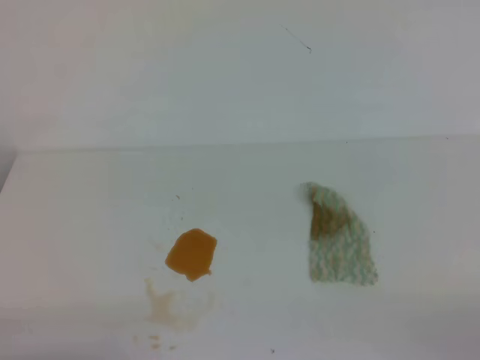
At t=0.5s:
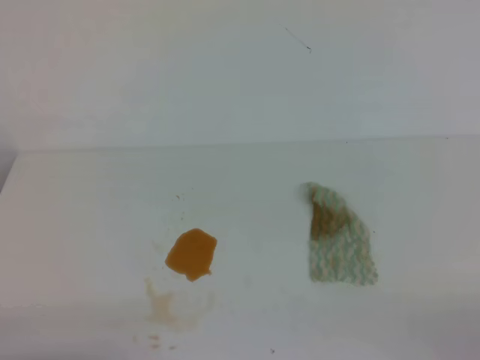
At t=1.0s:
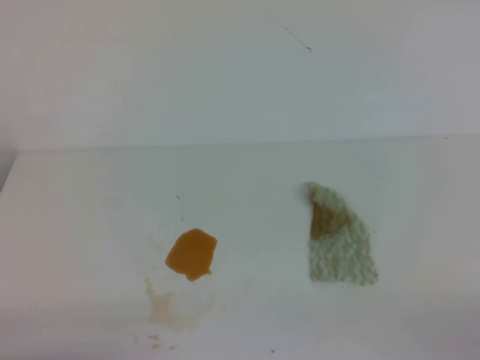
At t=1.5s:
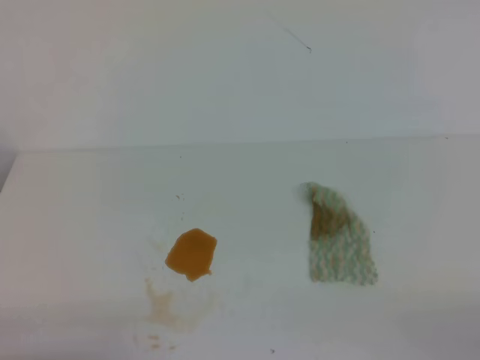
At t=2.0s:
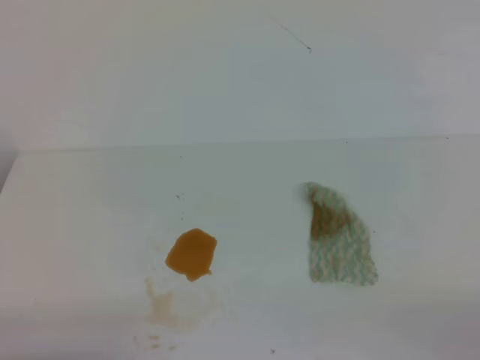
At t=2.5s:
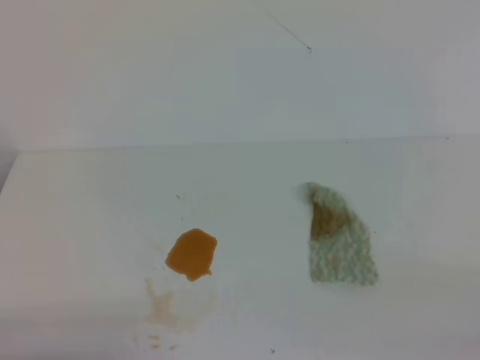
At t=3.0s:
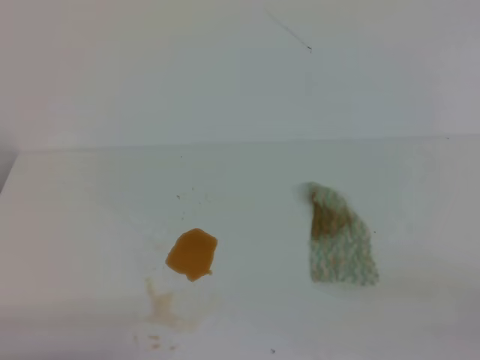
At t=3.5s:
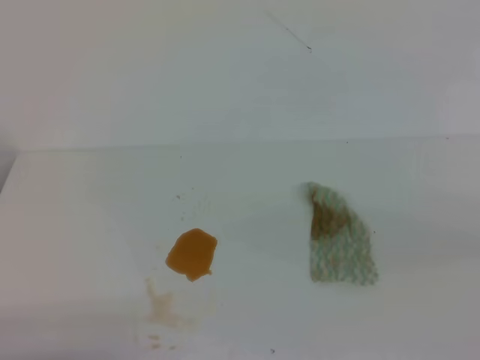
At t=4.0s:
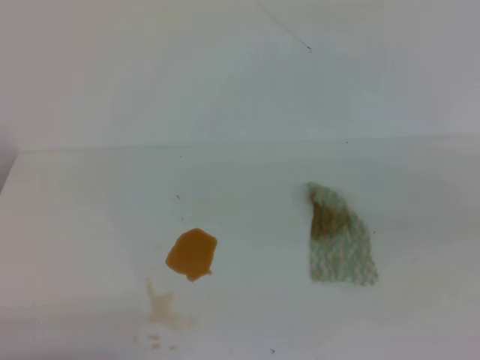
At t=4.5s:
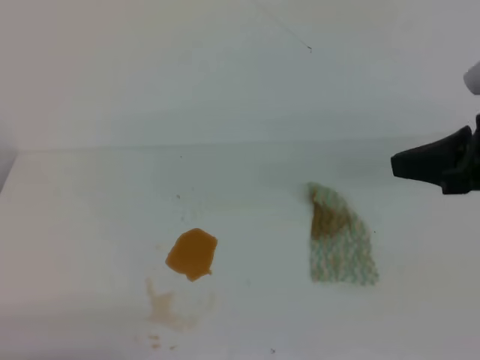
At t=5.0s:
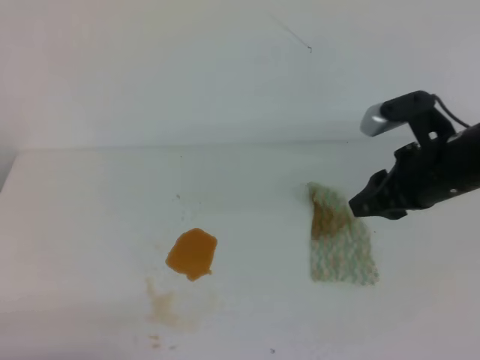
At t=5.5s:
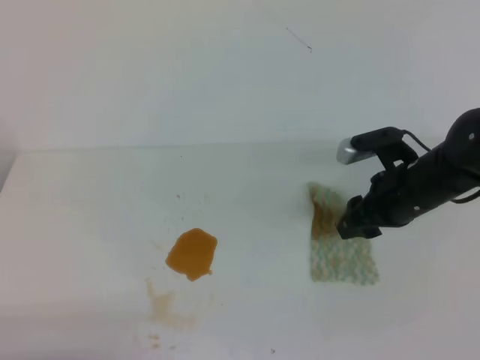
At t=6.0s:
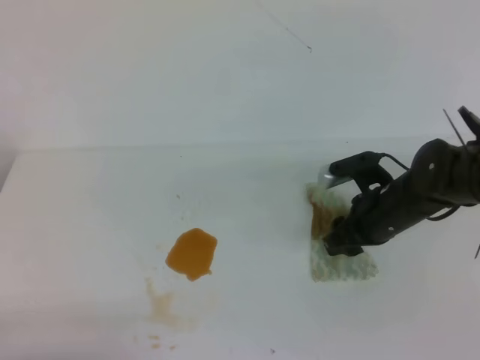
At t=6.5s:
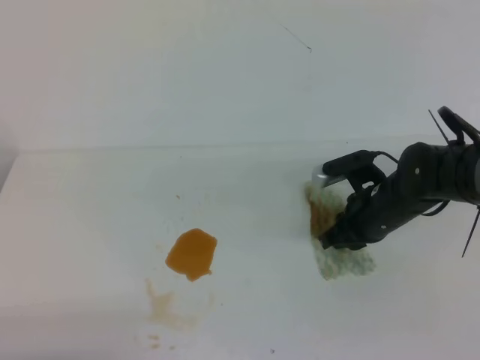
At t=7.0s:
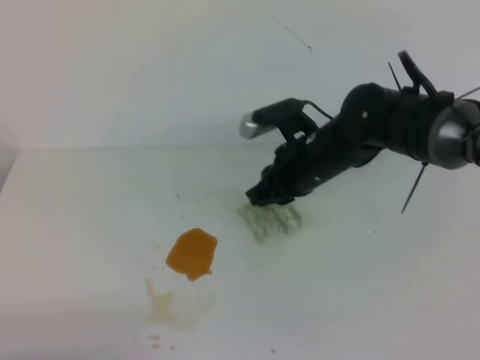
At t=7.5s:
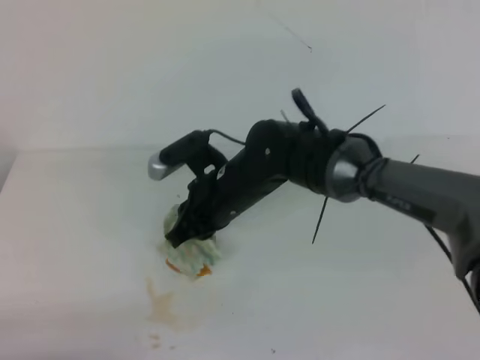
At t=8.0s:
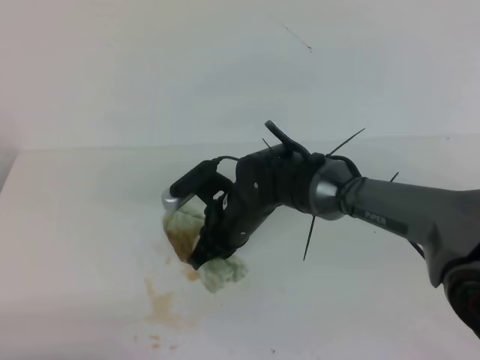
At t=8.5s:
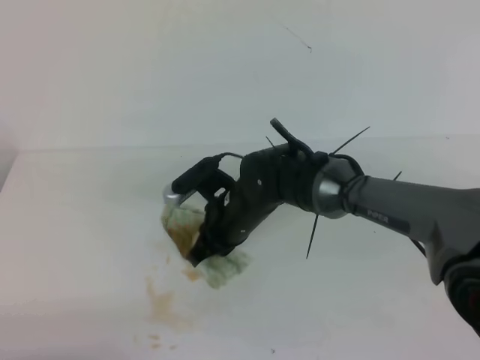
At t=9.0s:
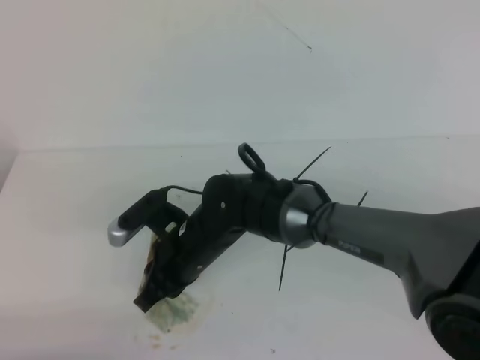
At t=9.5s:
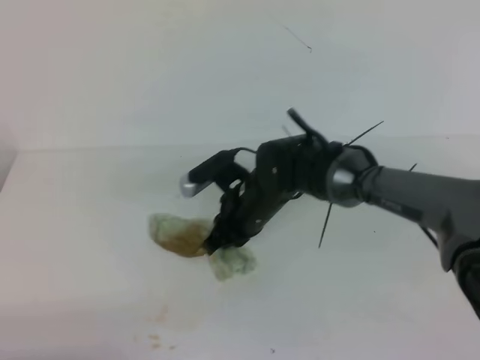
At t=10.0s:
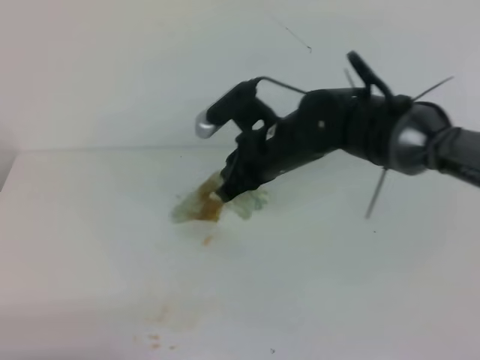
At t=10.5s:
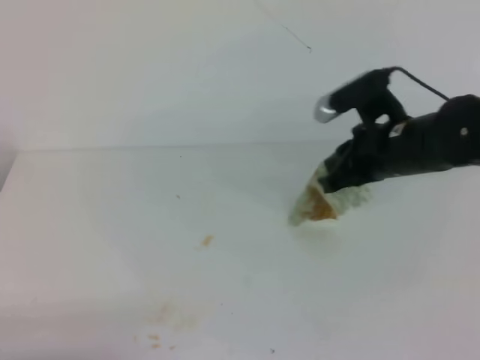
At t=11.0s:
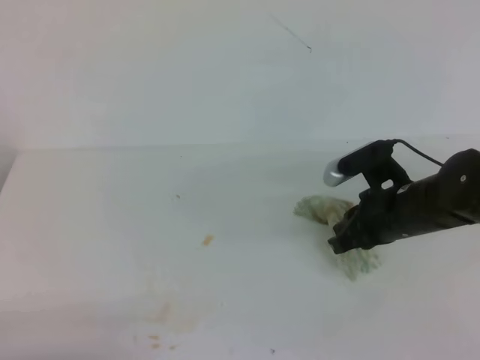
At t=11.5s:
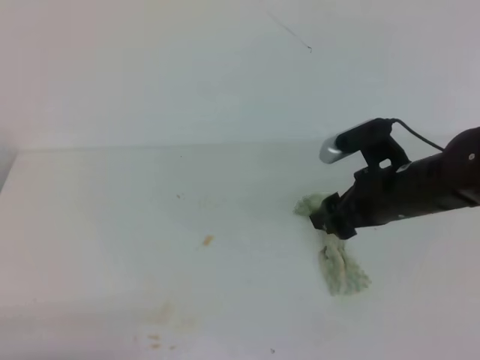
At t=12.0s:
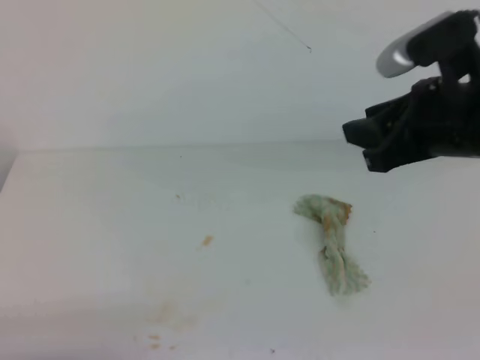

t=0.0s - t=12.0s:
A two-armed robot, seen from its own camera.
t=4.0s - t=6.0s: The right gripper is displaced forward, downward and to the left by roughly 30 cm, and opens.
t=6.0s - t=8.0s: The right gripper shifts some 20 cm to the left, and closes.
t=8.0s - t=10.0s: The right gripper travels upward and to the right by roughly 10 cm.
t=10.0s - t=12.0s: The right gripper goes approximately 20 cm to the right, upward and backward, and opens.

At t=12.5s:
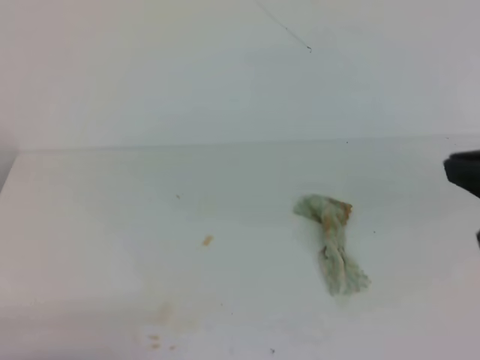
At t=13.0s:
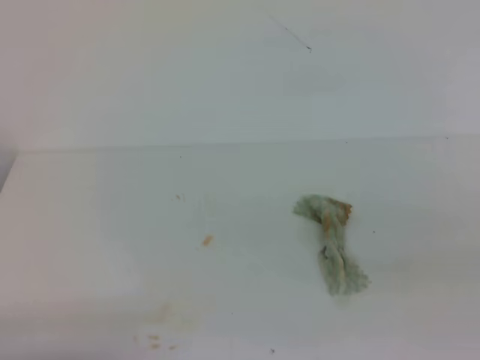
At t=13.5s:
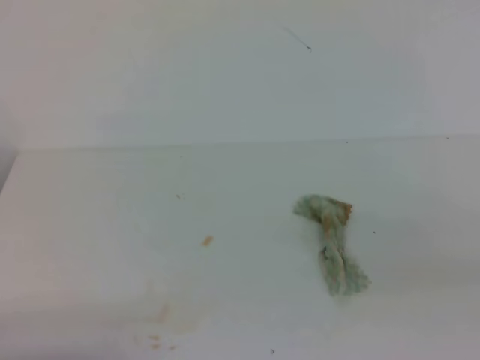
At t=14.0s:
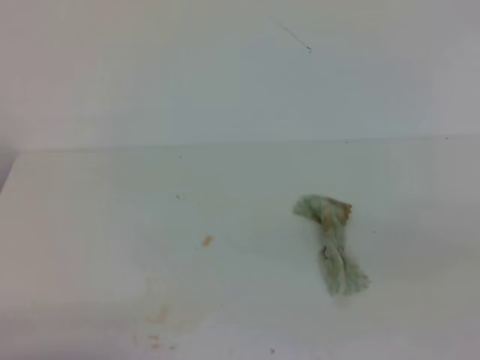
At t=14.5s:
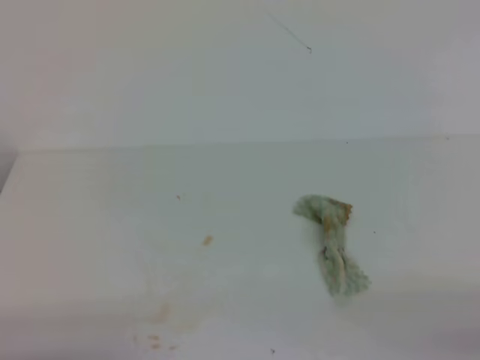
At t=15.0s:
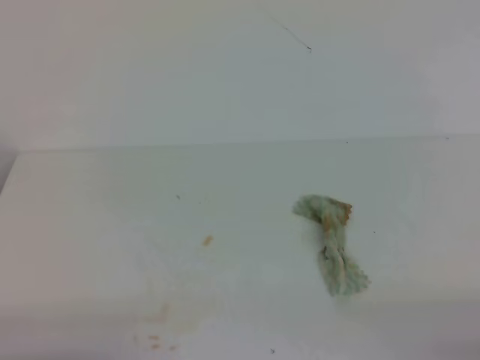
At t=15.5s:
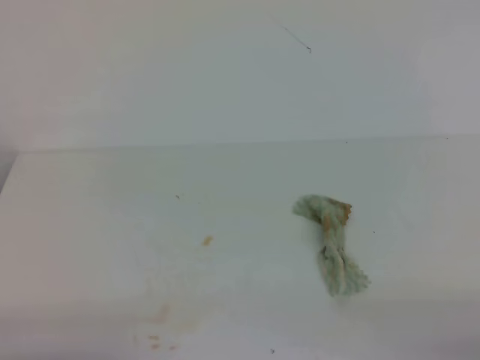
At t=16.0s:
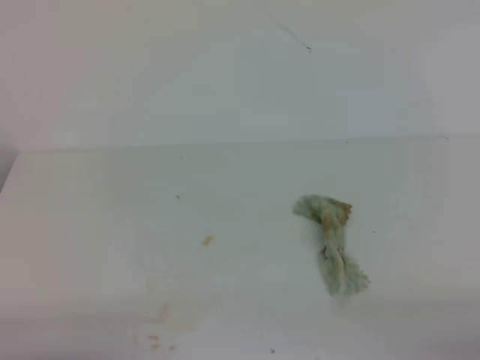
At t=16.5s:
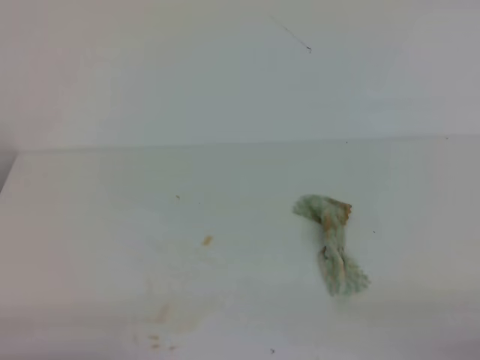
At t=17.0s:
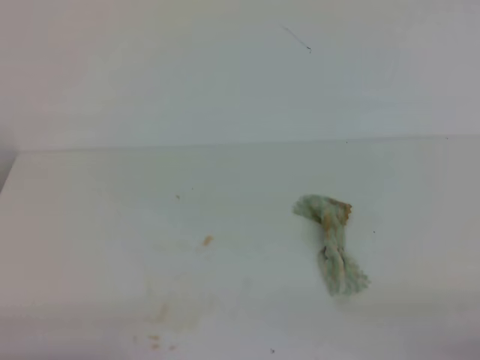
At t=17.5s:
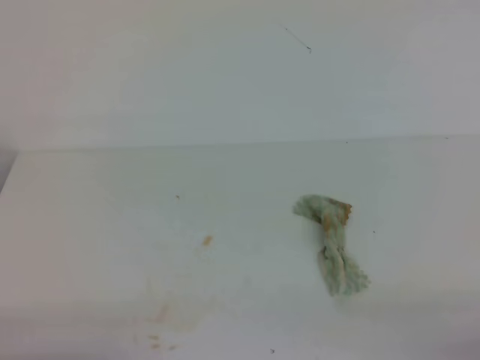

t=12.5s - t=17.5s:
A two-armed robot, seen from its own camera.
t=12.5s - t=15.0s: The right gripper is displaced downward, backward and to the right by approximately 25 cm.
